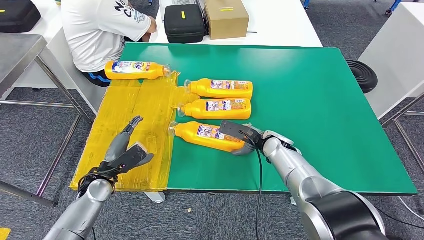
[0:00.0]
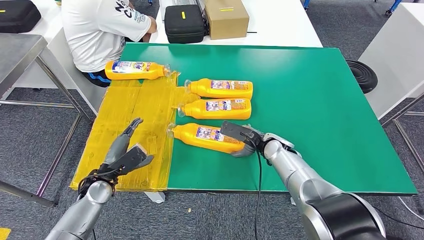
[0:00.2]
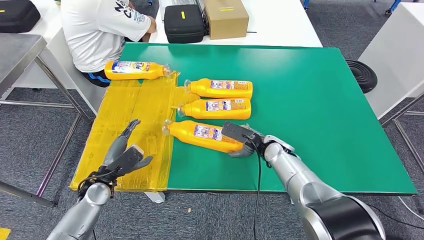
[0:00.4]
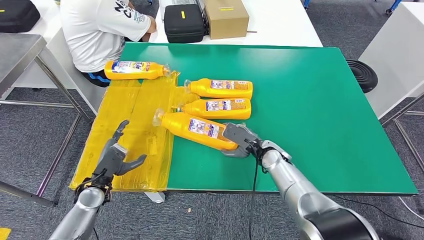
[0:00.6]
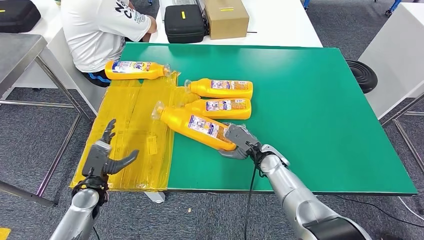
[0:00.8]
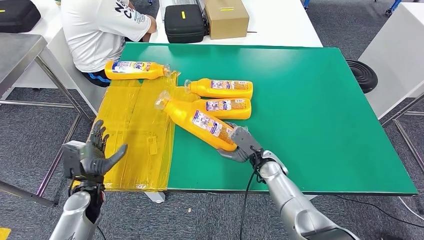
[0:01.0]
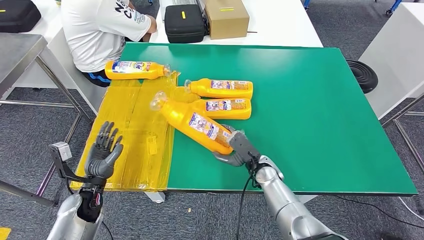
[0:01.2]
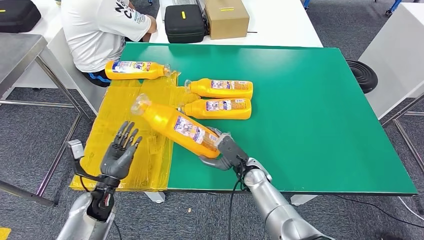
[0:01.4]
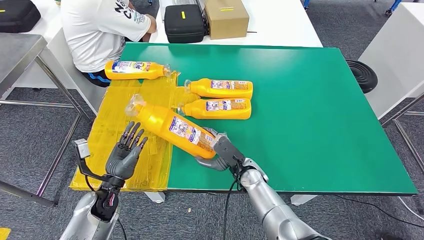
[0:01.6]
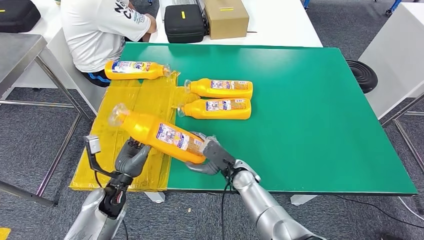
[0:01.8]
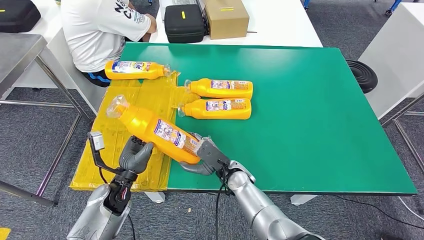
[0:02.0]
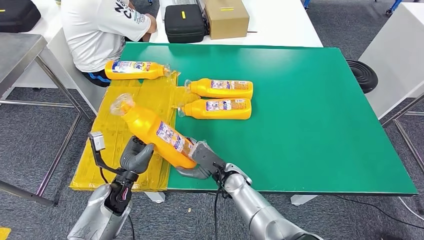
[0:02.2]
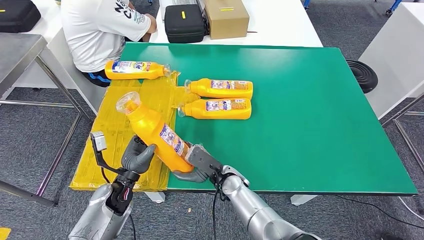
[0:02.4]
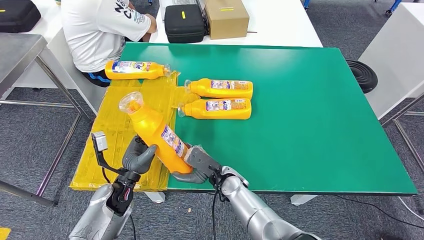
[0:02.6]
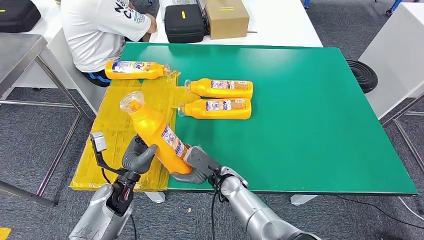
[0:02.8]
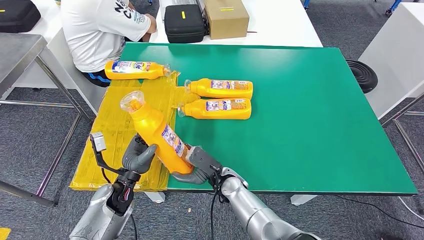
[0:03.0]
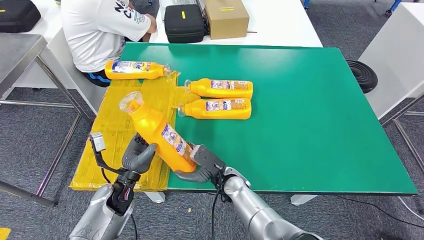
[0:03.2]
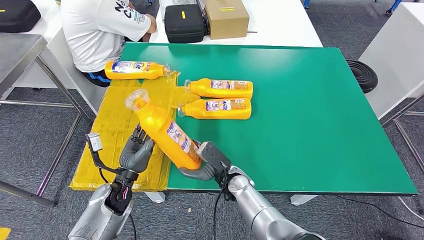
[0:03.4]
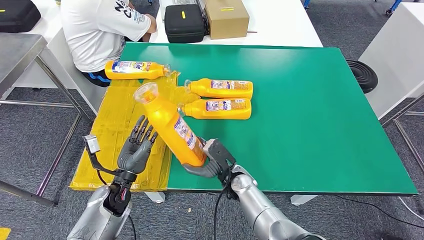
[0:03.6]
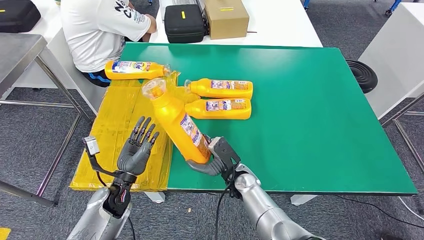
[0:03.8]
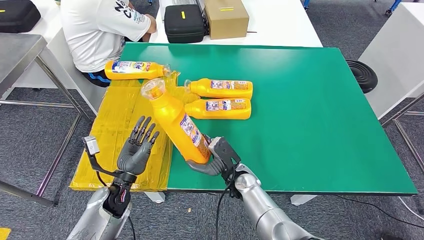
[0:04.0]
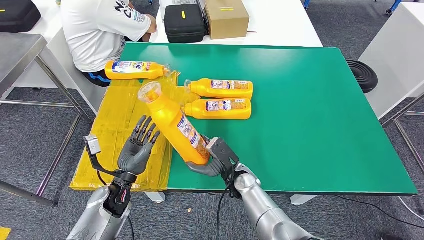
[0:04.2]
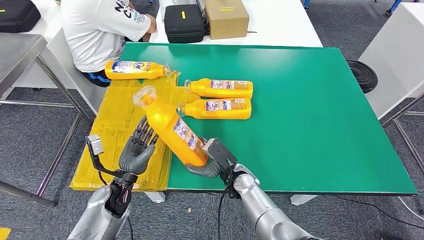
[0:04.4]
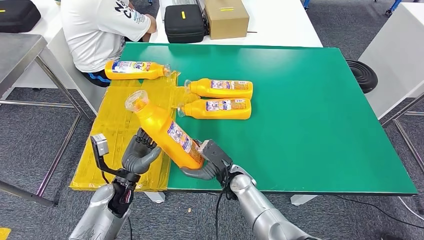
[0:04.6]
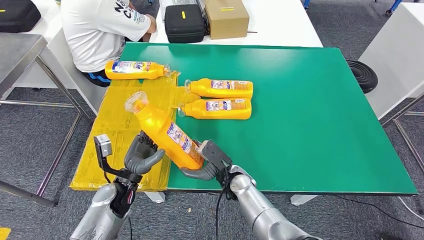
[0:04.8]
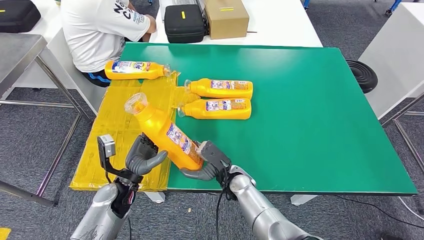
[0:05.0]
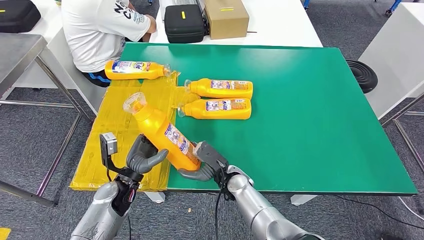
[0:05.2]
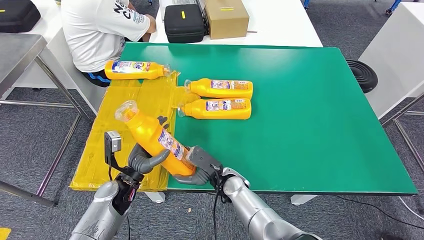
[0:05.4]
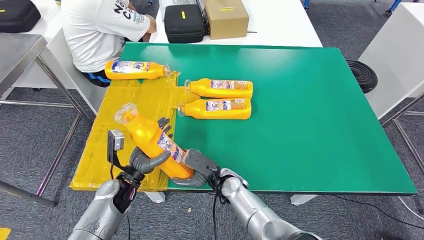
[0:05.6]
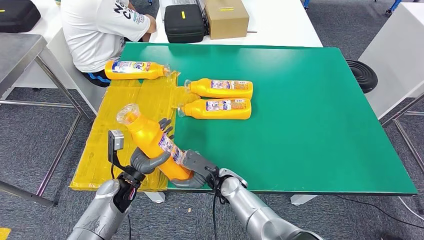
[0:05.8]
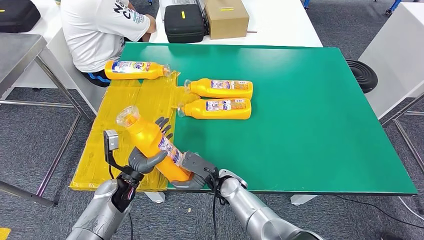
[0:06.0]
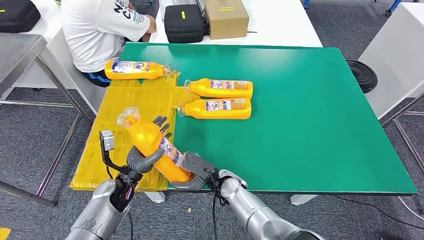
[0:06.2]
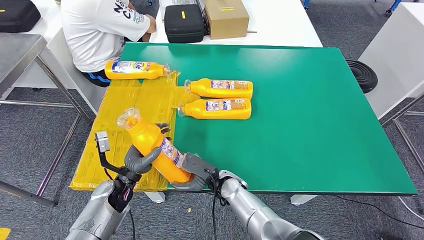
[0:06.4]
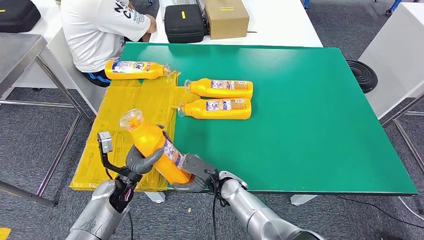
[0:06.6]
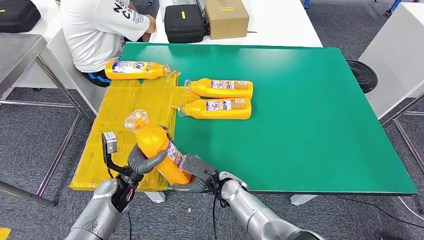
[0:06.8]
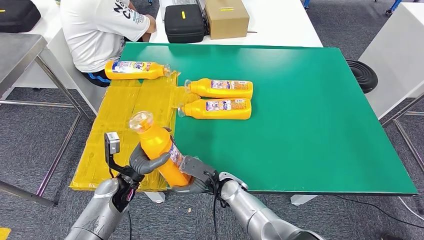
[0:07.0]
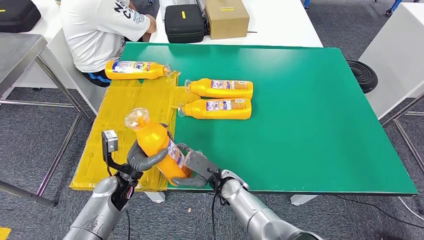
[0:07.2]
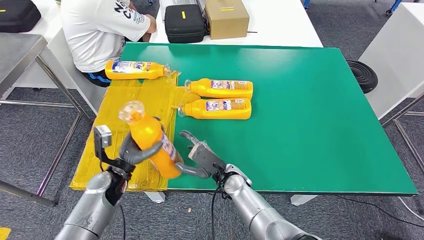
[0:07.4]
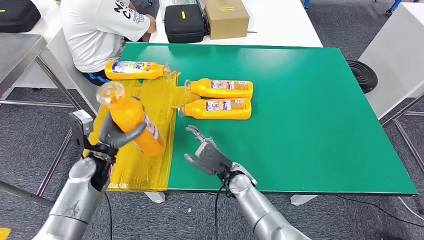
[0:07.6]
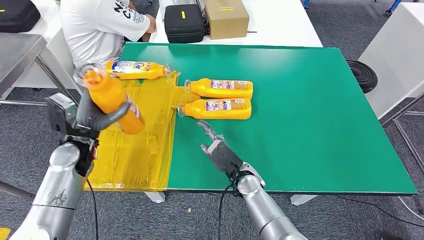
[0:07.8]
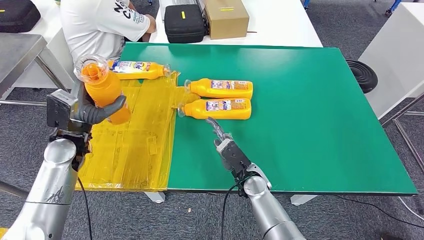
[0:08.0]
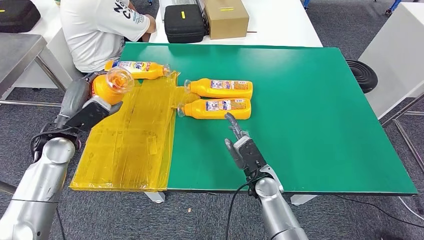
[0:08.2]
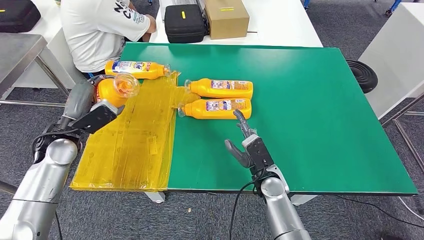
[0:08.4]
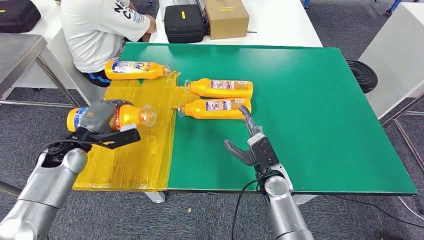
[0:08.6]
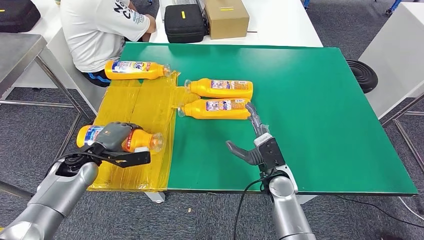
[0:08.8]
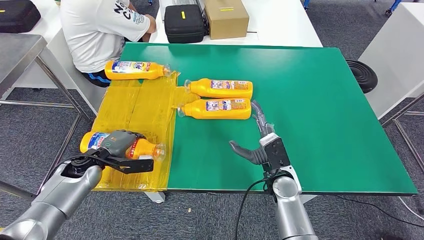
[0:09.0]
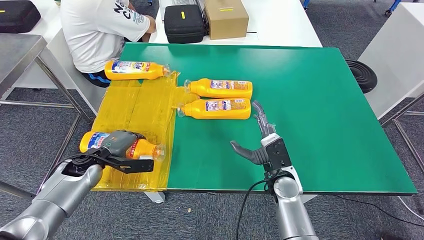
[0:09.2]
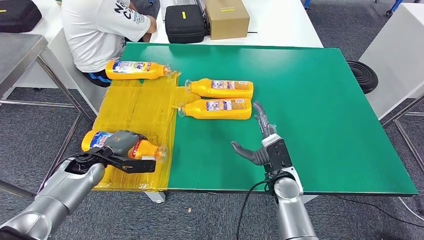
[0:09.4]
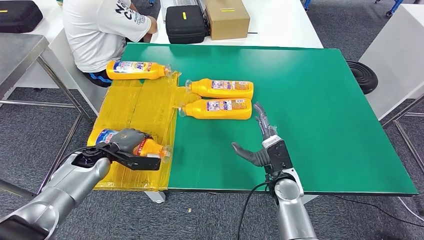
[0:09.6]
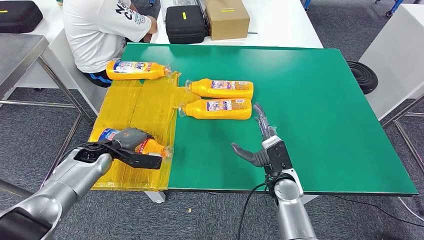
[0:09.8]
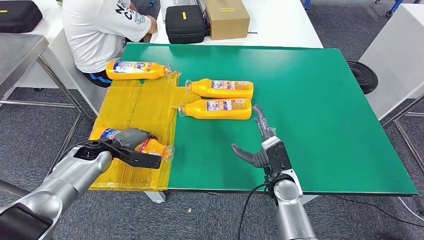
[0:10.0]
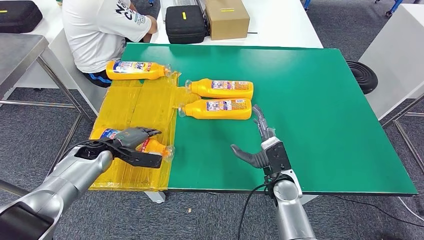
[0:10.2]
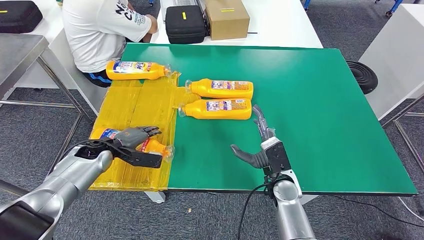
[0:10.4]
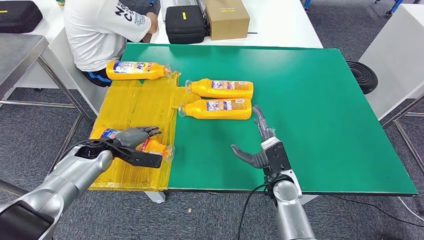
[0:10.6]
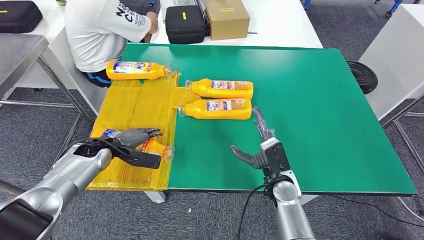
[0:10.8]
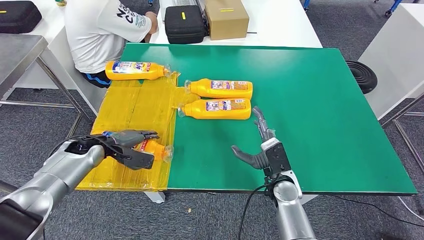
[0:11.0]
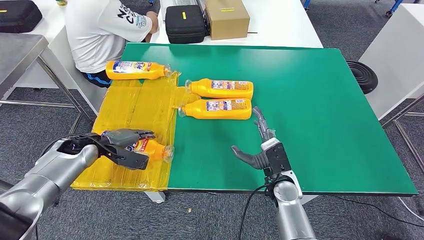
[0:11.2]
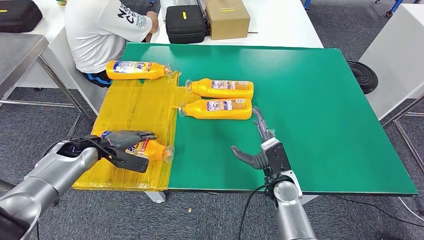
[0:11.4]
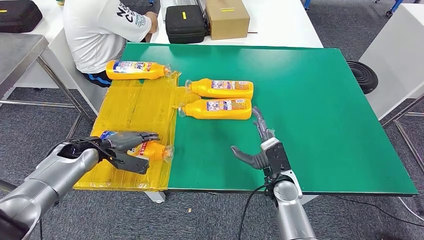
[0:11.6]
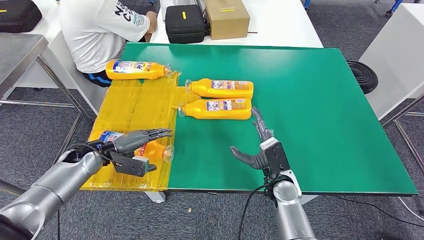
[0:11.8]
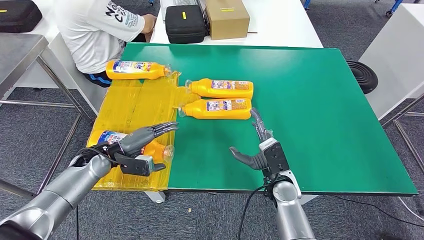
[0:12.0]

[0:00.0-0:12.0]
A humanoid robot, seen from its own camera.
Step, 0:00.0 to 0:02.2: Pick up the bottle from the table.
Step, 0:02.6 to 0:10.0: Flip the bottle to face forward.
0:00.0 to 0:01.6: The right hand travels to the left and backward by some 10 cm.
0:01.6 to 0:03.0: The right hand is displaced to the left by about 5 cm.
0:03.0 to 0:06.0: The hands move only a little.
0:06.0 to 0:07.6: The left hand travels upward and to the left by about 10 cm.
0:07.6 to 0:09.0: The right hand shifts roughly 10 cm to the right; the left hand travels to the left by approximately 5 cm, and travels upward and back again, roughly 10 cm each way.
0:09.0 to 0:10.4: There are only small adjustments of the hands.

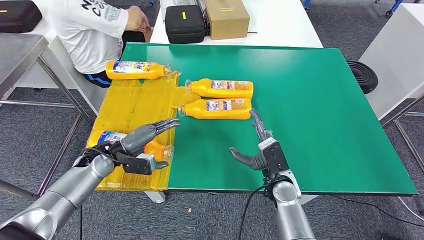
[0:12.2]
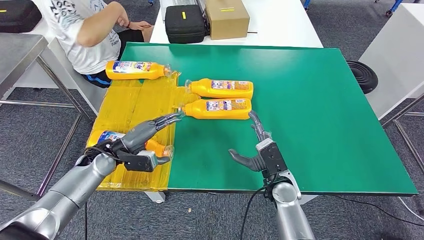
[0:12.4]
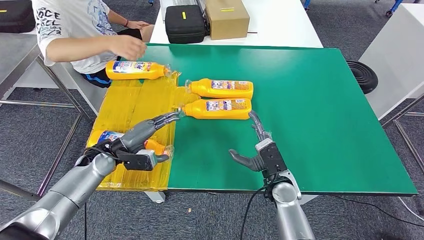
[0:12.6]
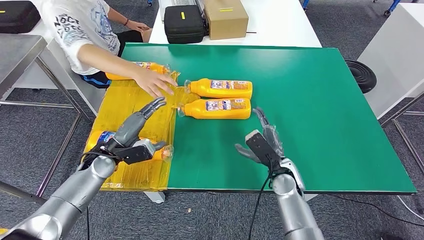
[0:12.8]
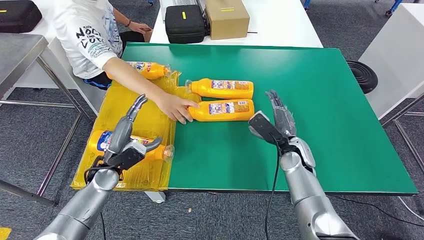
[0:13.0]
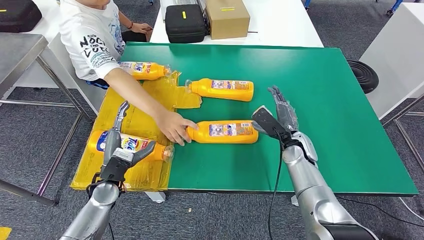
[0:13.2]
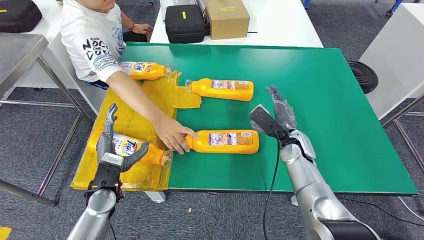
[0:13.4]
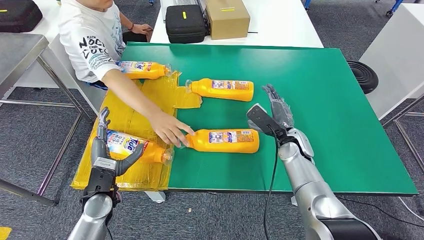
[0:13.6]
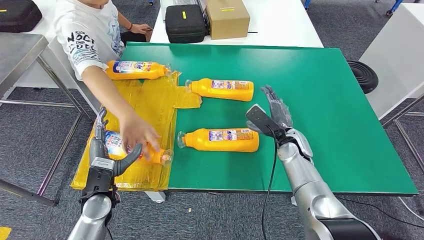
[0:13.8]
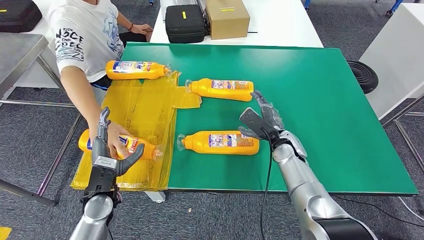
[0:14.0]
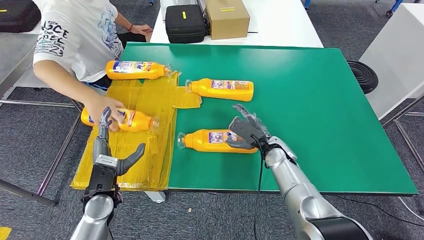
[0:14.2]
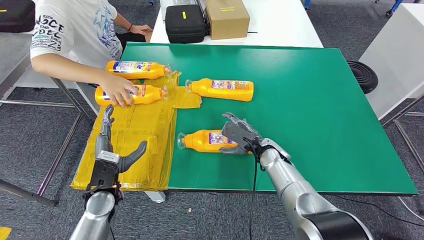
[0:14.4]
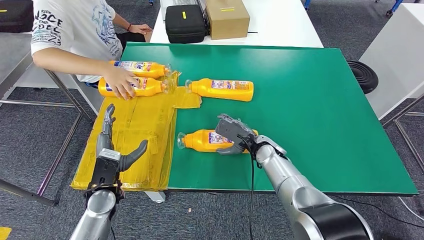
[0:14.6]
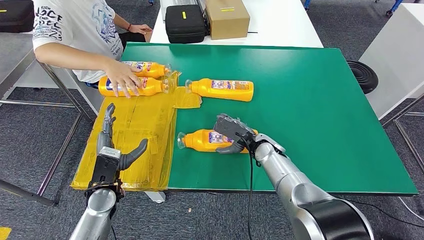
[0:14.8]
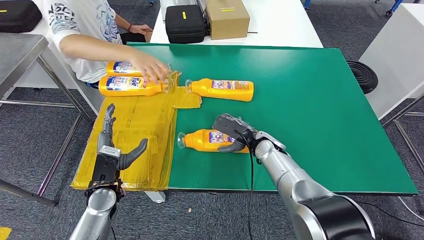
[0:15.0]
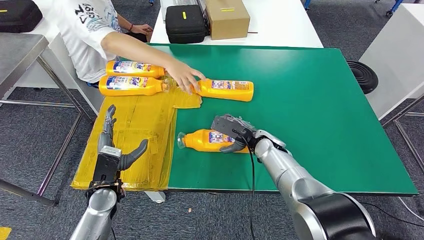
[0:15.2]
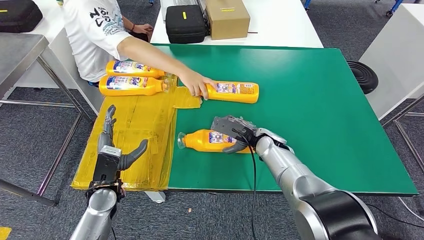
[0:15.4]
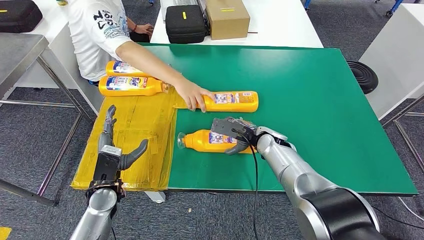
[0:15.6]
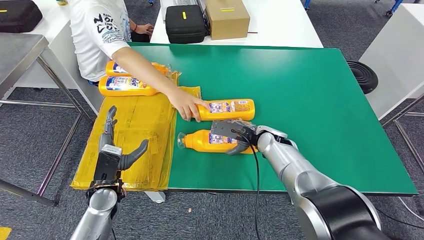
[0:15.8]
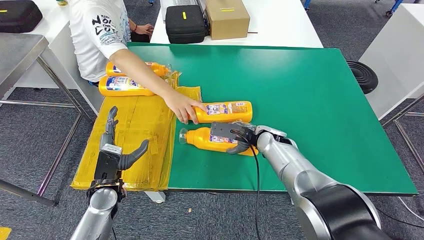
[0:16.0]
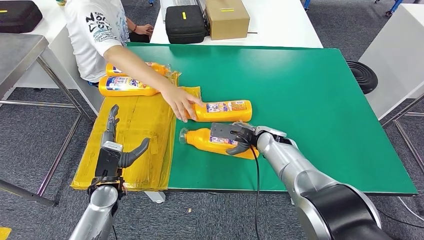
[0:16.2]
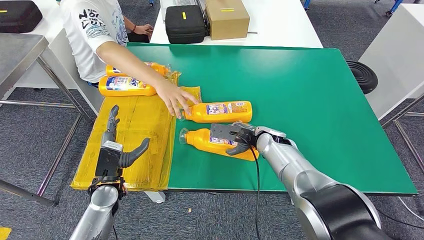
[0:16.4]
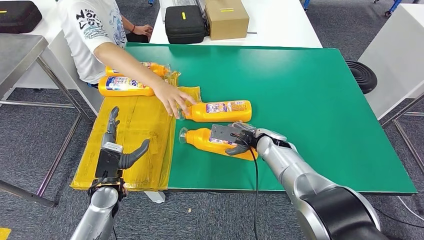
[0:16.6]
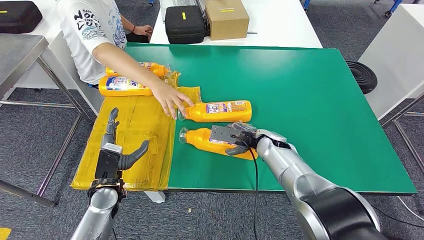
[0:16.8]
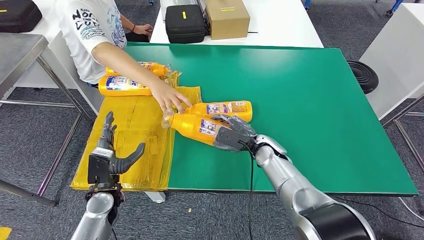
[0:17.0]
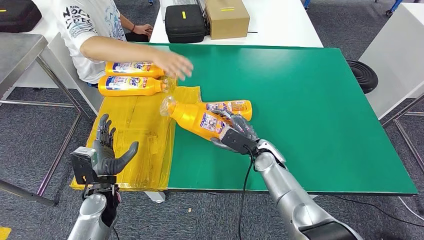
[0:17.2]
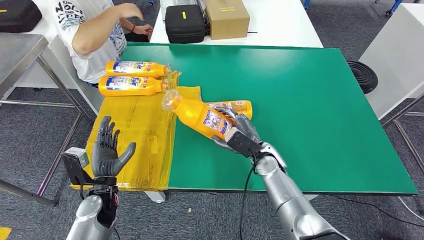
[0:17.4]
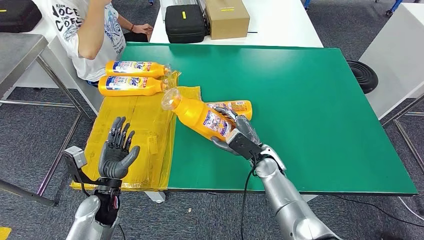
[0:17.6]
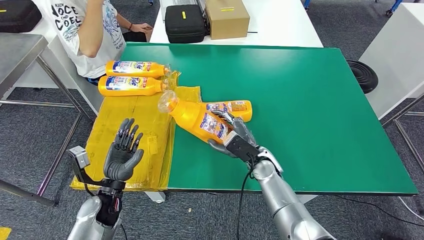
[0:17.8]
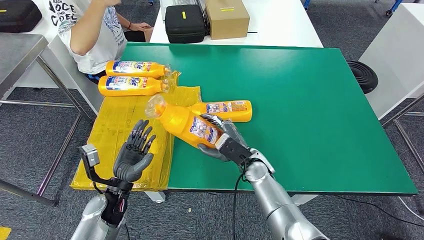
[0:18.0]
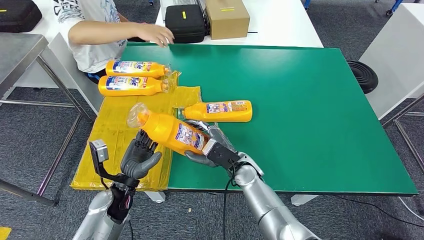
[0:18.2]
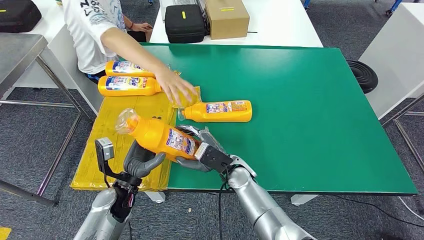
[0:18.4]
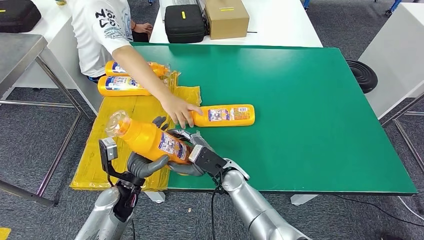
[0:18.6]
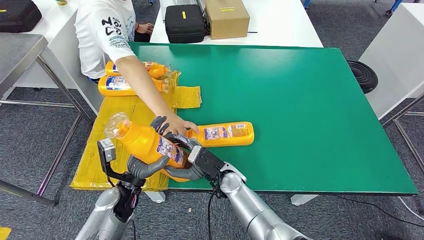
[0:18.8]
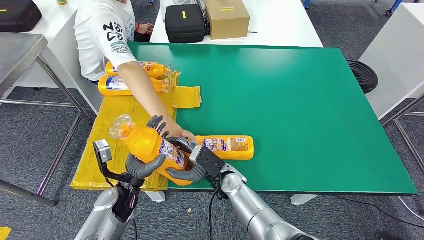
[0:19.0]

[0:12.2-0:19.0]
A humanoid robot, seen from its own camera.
Step, 0:12.2 to 0:18.0: Pick up the bottle from the table.
0:13.6 to 0:15.0: The right hand is displaced to the left by about 5 cm.
